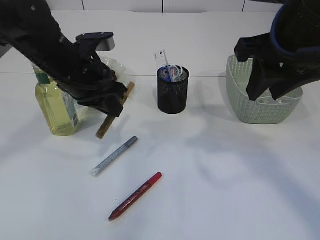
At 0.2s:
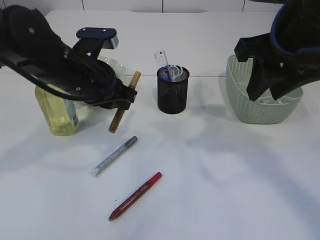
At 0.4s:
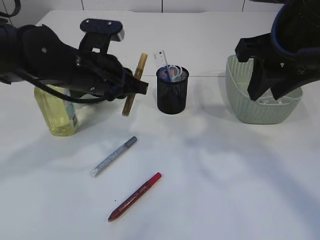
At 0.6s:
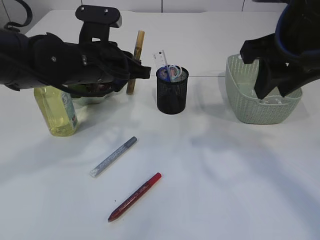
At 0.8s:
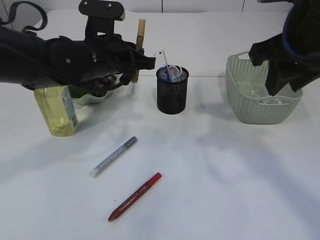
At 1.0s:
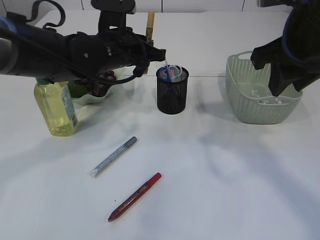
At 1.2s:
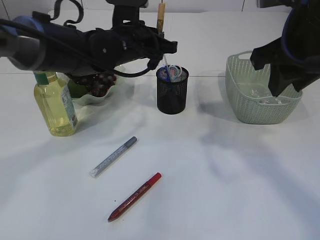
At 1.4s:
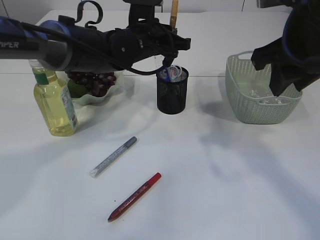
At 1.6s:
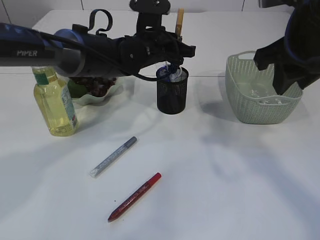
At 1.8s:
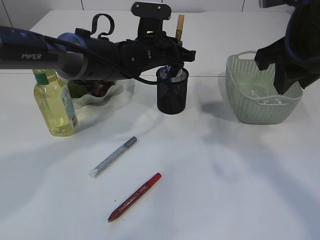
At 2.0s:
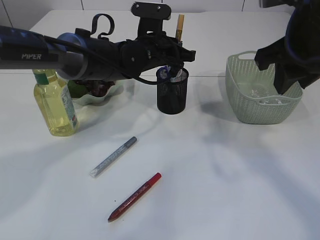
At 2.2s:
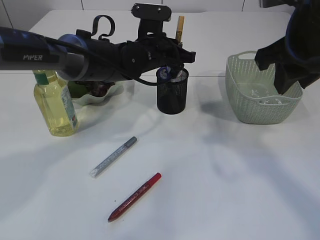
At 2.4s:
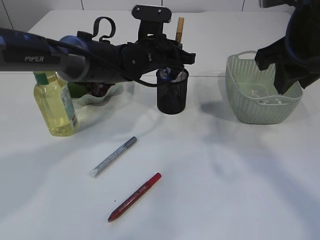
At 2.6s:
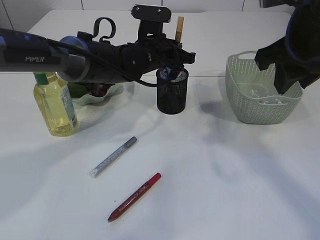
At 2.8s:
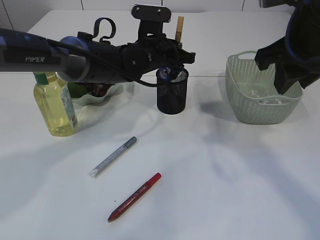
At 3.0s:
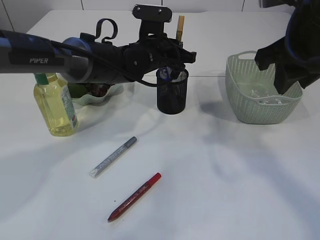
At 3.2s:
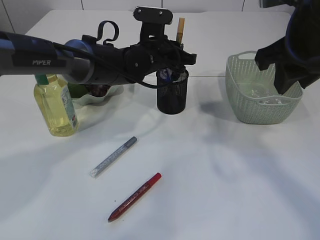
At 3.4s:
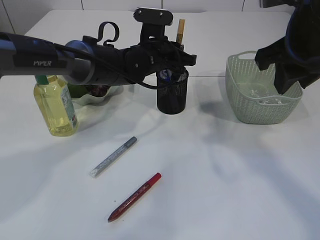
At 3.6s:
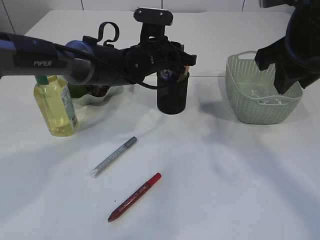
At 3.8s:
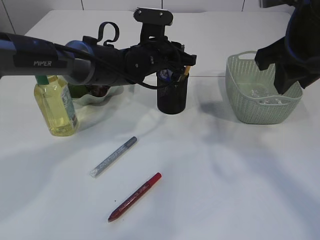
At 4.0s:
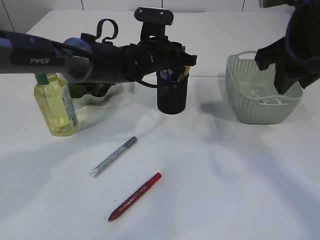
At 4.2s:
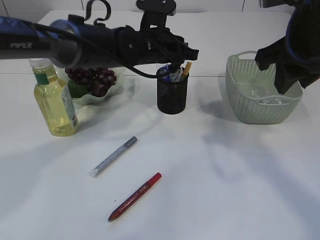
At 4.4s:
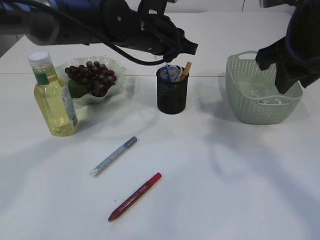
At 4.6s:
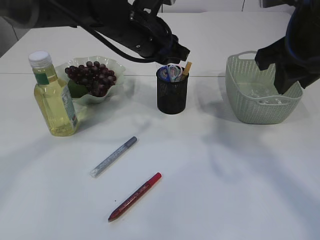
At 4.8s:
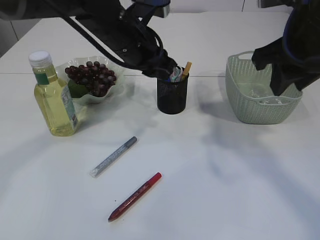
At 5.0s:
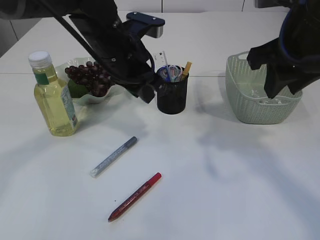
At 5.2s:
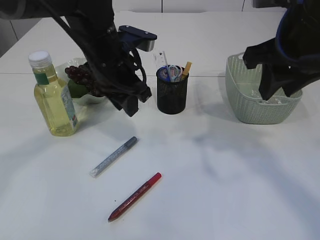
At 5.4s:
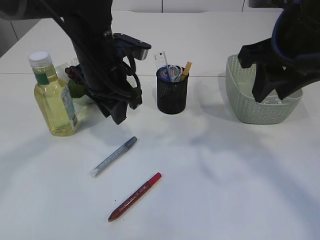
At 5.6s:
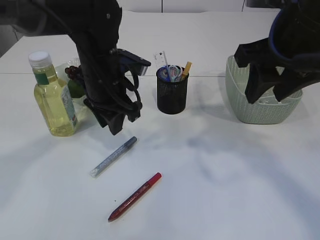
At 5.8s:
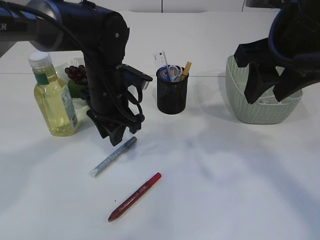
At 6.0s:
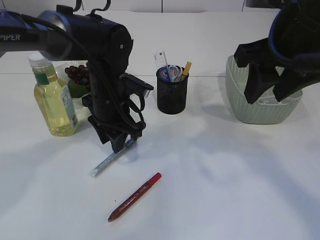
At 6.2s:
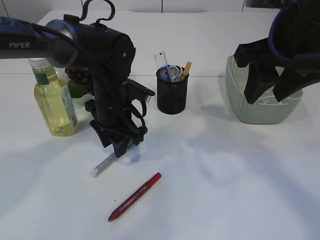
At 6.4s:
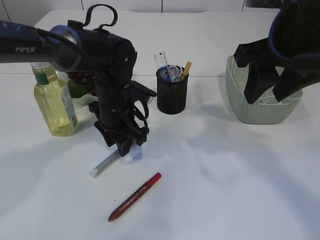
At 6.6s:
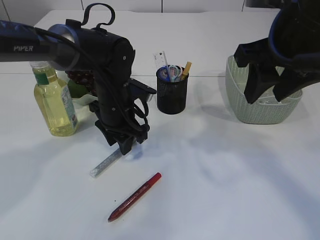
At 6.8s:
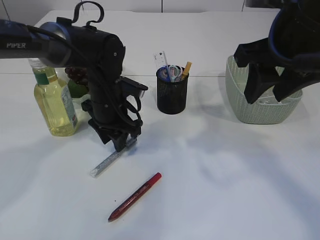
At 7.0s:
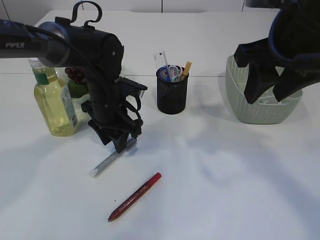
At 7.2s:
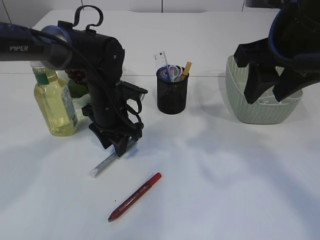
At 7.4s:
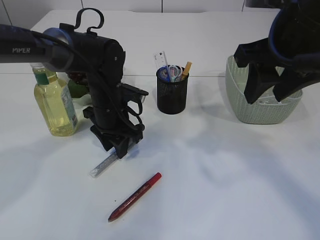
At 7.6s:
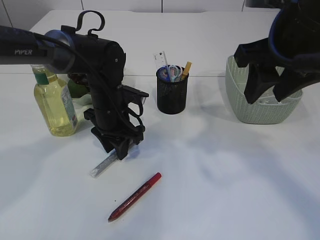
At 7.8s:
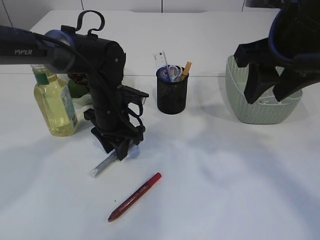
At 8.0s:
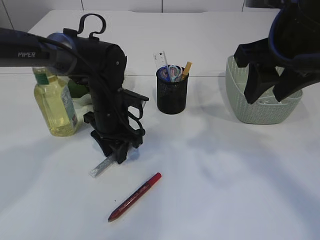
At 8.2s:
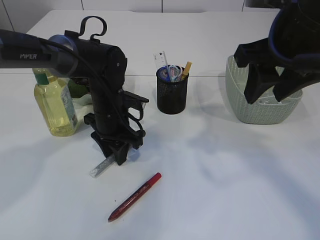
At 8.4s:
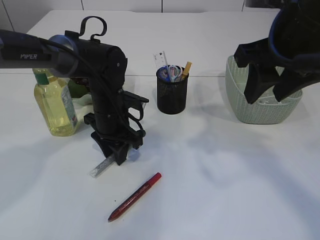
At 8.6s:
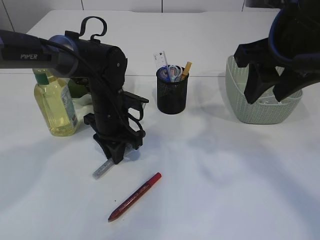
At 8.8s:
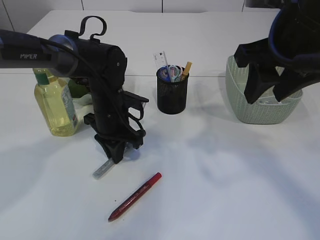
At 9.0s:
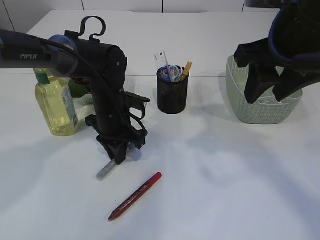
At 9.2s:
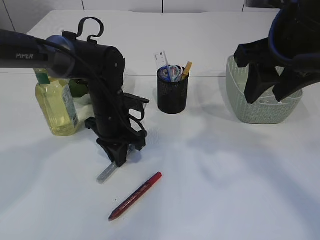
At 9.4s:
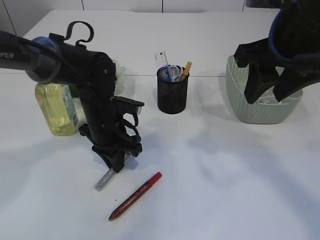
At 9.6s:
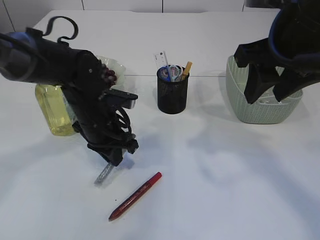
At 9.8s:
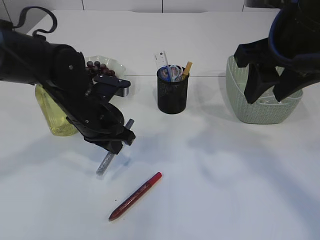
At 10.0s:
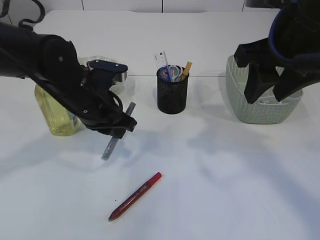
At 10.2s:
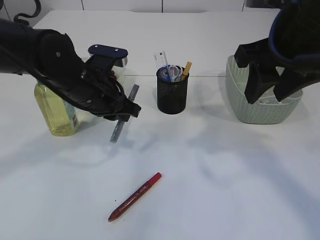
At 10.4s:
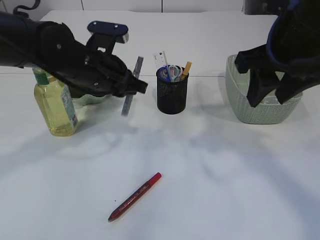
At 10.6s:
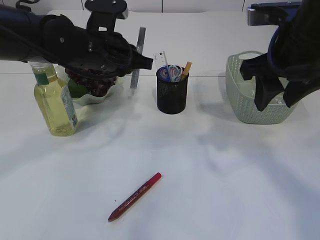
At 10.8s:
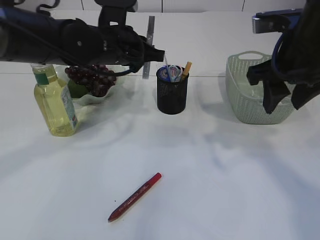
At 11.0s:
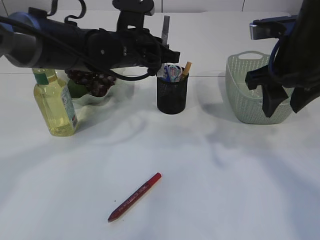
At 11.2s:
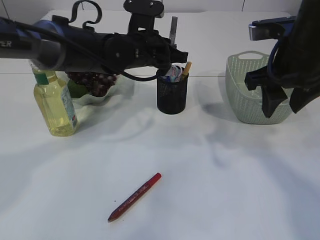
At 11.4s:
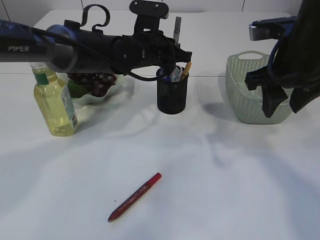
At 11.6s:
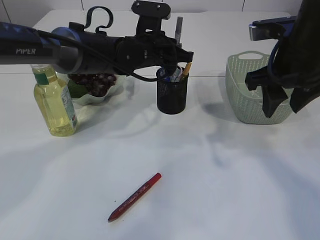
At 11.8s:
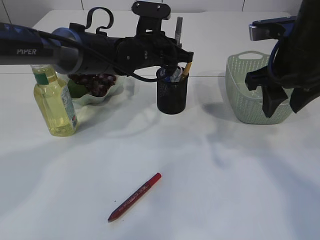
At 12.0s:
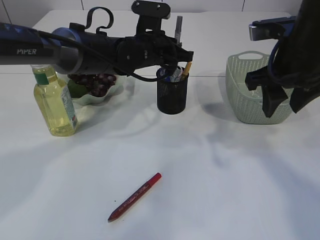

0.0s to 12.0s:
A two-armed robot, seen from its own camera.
Step, 0.0s to 4.2s: place the yellow glue into the pen holder.
Step, 4.4s to 9.8s: pick up the silver glue.
0.0s to 1.6s: The left gripper moves to the right and forward, some 15 cm.
1.6s to 3.0s: The grippers make only small movements.
3.0s to 4.4s: The left gripper heads upward, covering some 5 cm.
4.4s to 6.0s: The left gripper is displaced downward and to the left by approximately 10 cm.
6.0s to 7.6s: The grippers stay close to where they were, moving slightly.
7.6s to 9.0s: The left gripper closes up.
9.0s to 10.4s: The left gripper goes some 10 cm upward.
10.4s to 12.0s: The left gripper goes some 10 cm forward and to the right, while the right gripper ends up some 5 cm from where it was.

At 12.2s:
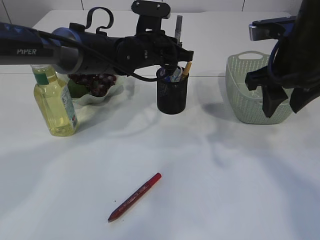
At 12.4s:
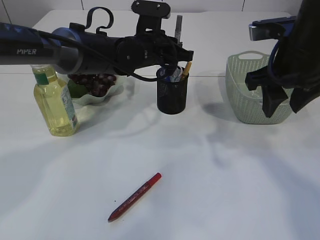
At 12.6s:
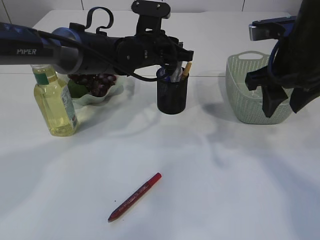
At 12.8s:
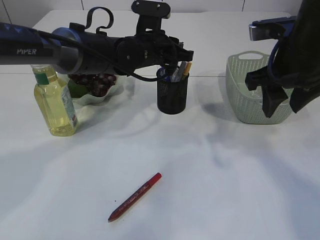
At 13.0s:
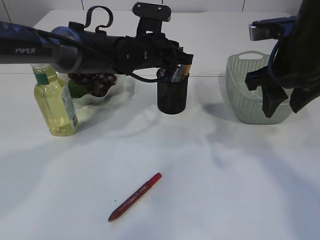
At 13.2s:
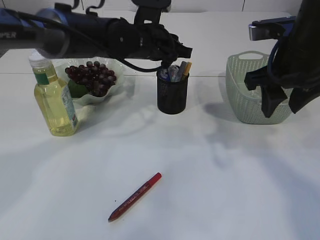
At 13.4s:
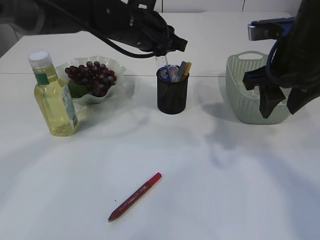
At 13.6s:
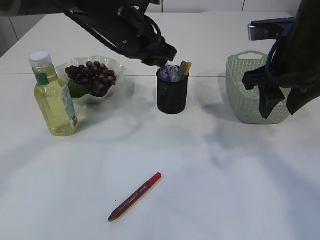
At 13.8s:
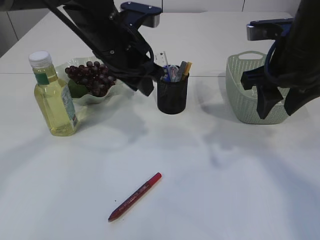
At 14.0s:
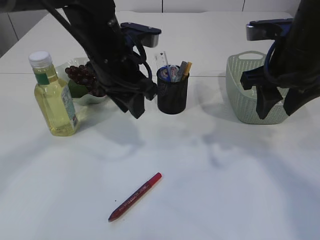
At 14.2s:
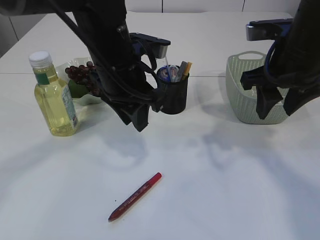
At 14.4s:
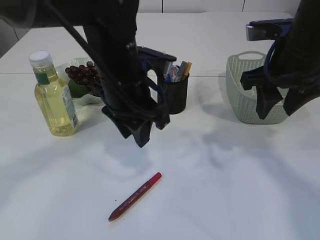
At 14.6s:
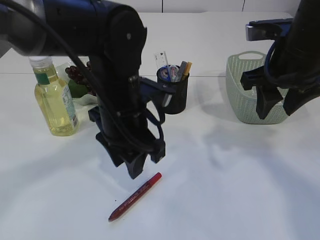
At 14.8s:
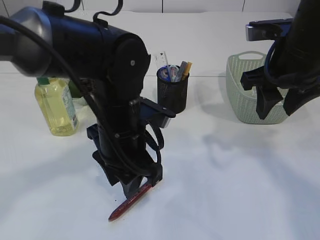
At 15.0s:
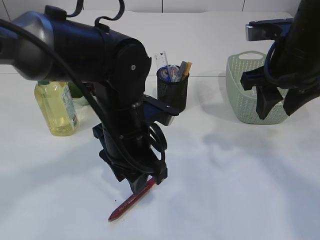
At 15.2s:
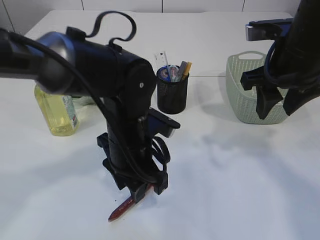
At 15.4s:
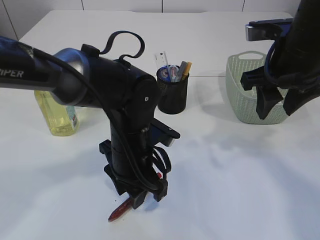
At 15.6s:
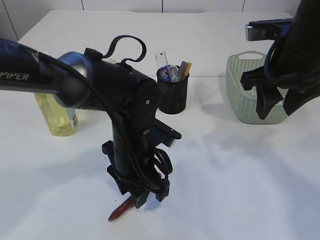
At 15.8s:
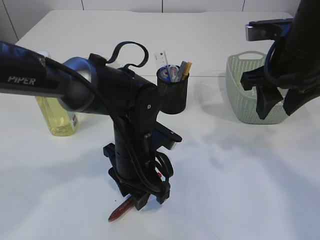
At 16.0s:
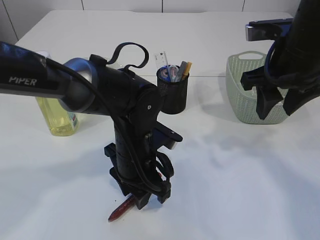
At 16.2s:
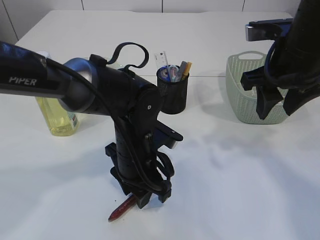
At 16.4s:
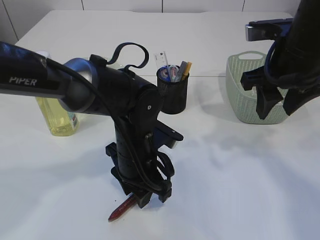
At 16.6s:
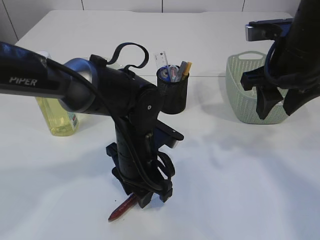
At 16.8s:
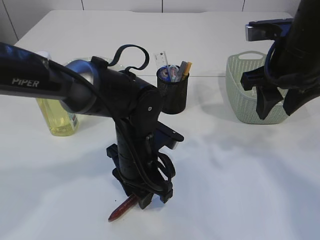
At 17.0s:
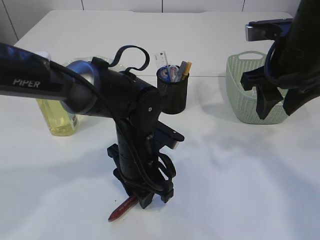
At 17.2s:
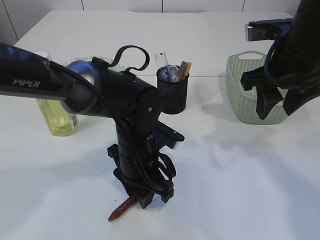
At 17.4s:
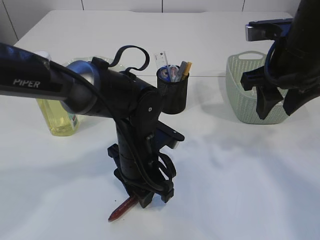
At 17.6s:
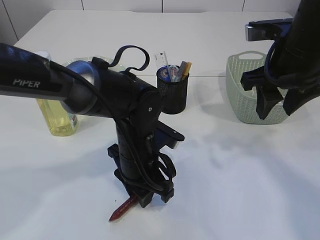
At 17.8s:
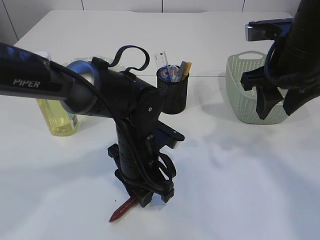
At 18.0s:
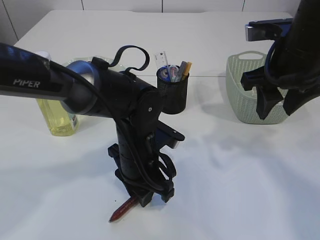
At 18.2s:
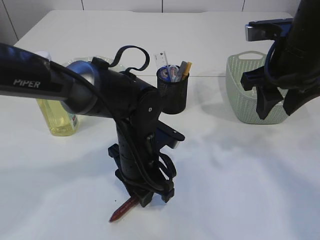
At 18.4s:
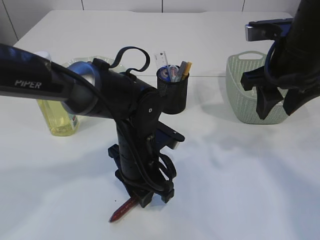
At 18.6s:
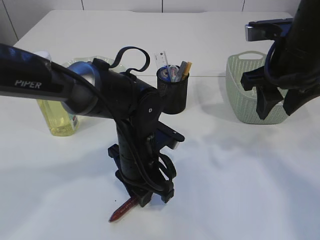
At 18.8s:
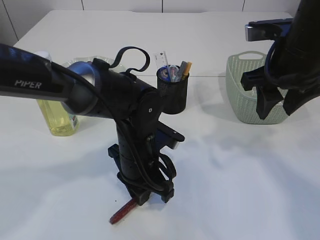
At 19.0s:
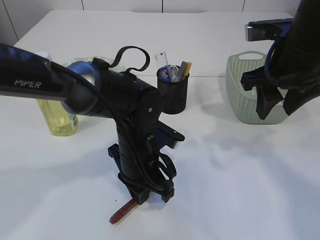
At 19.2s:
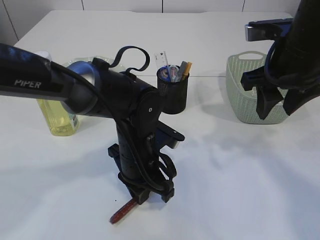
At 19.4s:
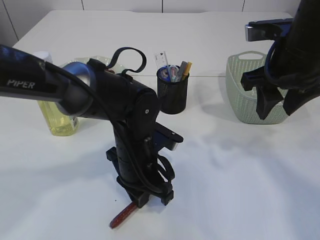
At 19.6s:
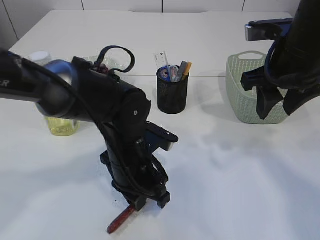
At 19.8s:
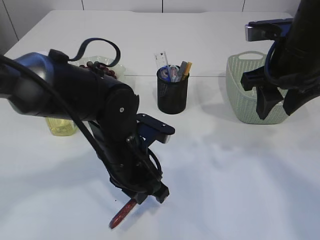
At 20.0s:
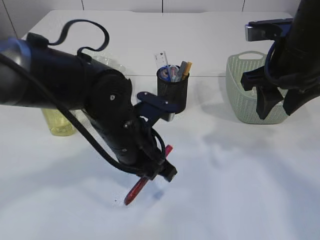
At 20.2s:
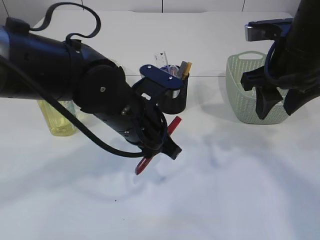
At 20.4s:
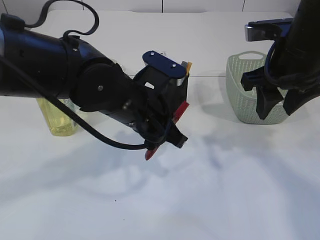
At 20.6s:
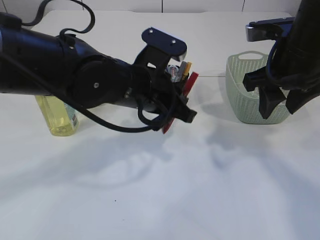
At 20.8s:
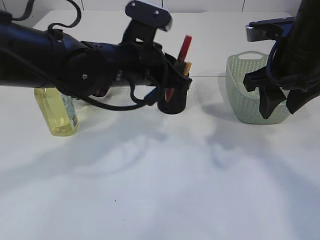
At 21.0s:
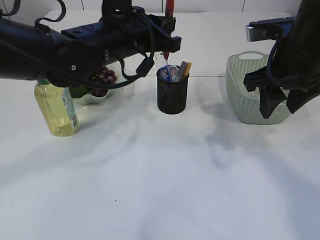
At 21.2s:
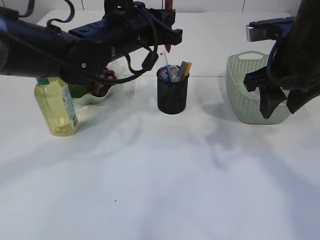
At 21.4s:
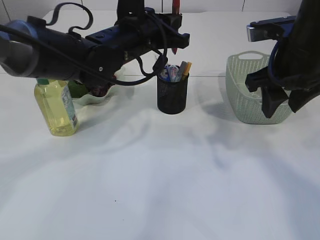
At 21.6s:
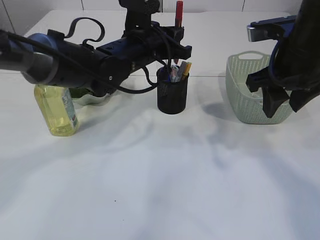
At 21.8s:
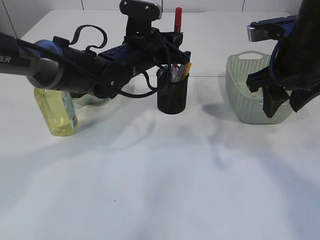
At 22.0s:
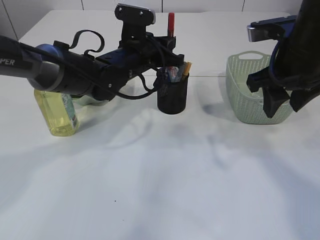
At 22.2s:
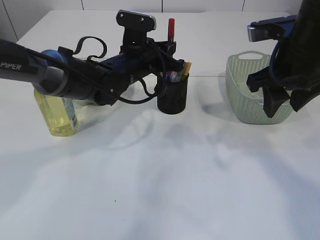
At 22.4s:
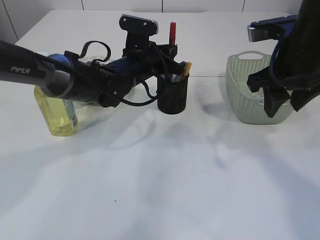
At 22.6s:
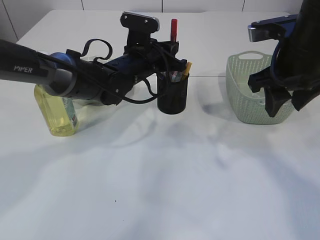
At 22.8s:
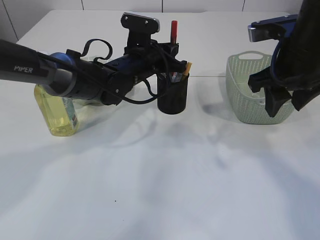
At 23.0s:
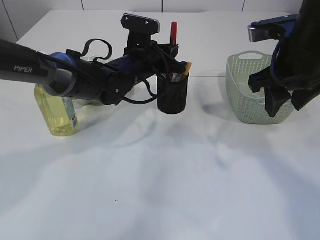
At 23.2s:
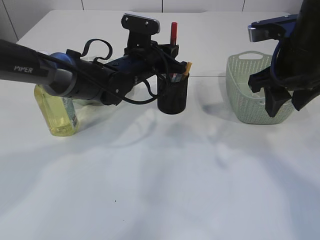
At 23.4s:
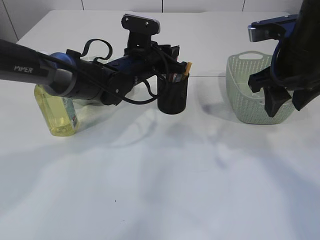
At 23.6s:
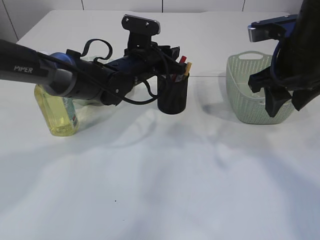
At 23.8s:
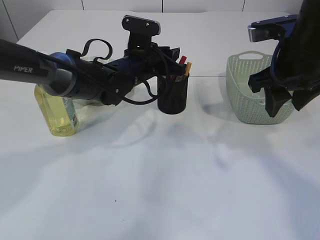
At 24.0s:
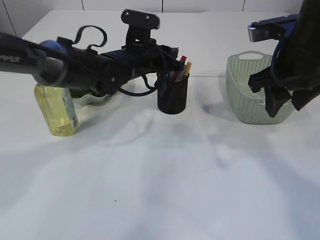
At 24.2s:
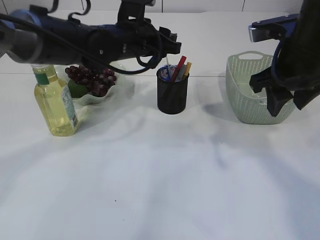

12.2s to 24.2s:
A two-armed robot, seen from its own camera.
Step, 13.2s to 20.2s: pick up the red glue.
Step, 20.4s to 24.0s: place the red glue into the pen holder.
12.2s to 13.8s: The left gripper heads backward and upward, covering about 10 cm.
13.8s to 15.2s: The left gripper heads downward and backward, covering about 15 cm.
15.2s to 16.6s: The grippers stay close to where they were, moving slightly.
16.6s to 18.2s: Both grippers stay about where they are.
18.2s to 19.8s: The left gripper closes its fingers.
19.8s to 21.2s: The left gripper travels upward and forward by approximately 15 cm.
21.2s to 22.6s: The left gripper travels downward and forward by approximately 10 cm.
22.6s to 24.2s: The left gripper moves upward, roughly 5 cm, and opens its fingers.
